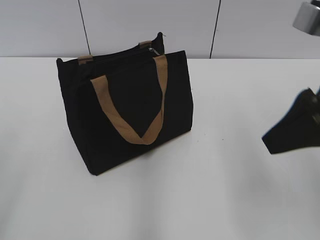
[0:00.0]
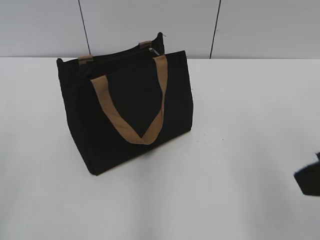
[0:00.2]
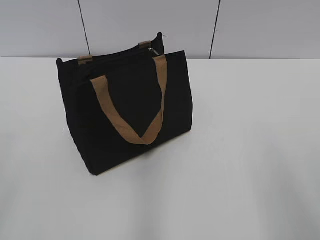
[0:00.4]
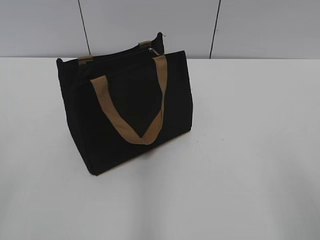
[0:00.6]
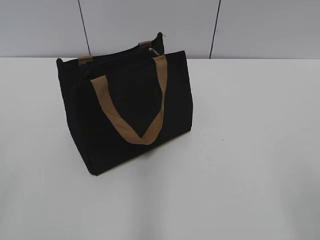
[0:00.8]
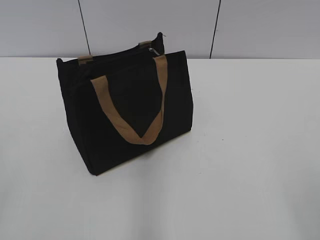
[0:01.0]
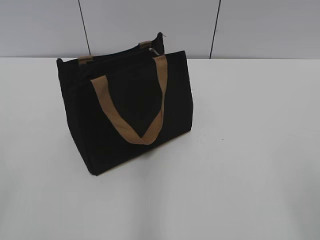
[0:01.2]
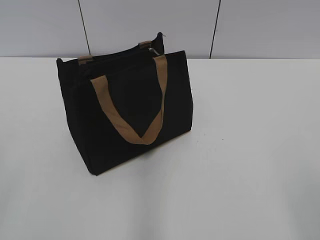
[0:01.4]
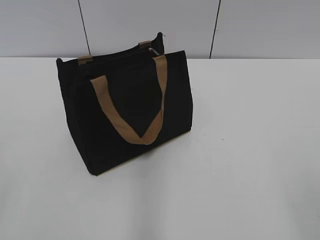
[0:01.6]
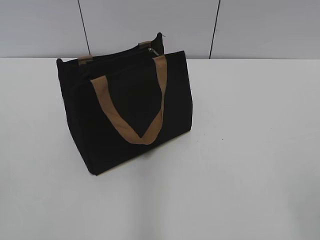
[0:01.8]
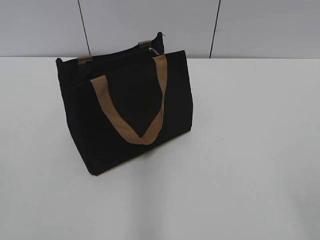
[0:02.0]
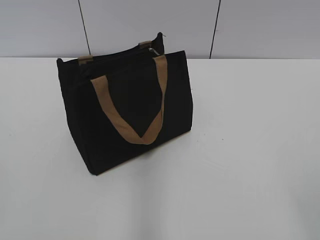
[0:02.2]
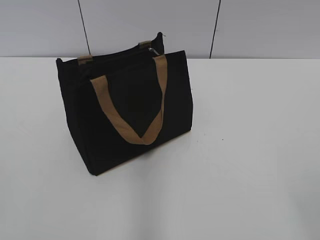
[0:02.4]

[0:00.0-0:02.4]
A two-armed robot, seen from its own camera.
0:00.0 to 0:01.2: The right gripper shifts some 20 cm backward.
